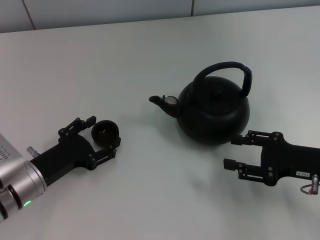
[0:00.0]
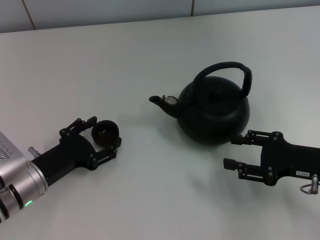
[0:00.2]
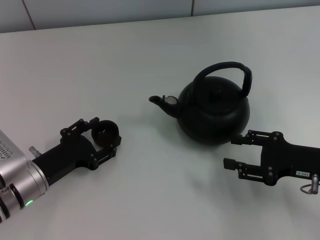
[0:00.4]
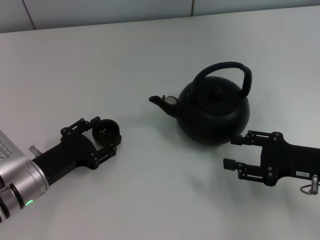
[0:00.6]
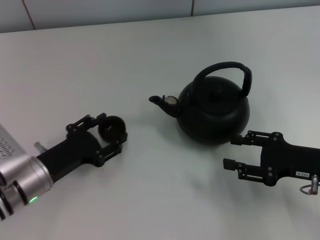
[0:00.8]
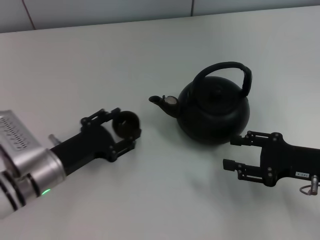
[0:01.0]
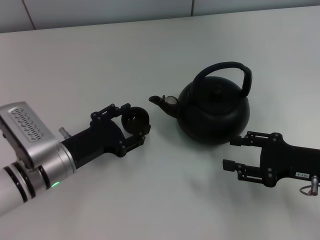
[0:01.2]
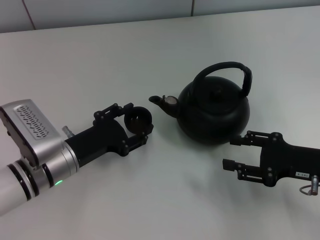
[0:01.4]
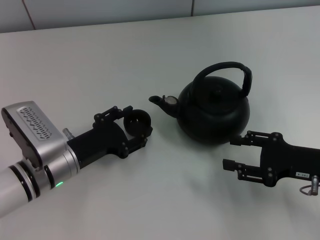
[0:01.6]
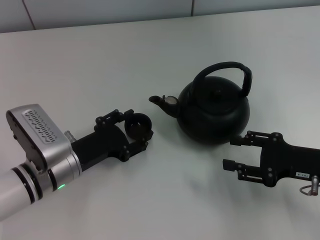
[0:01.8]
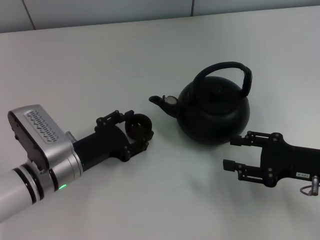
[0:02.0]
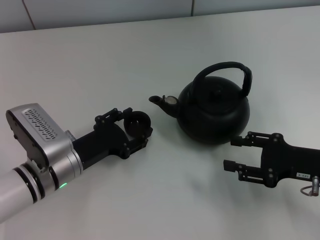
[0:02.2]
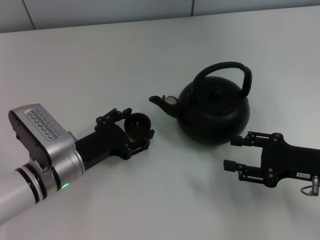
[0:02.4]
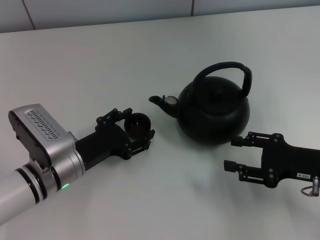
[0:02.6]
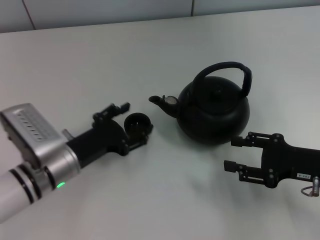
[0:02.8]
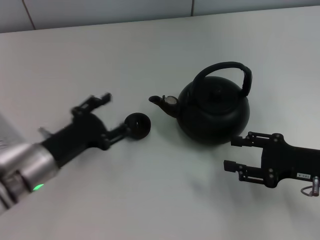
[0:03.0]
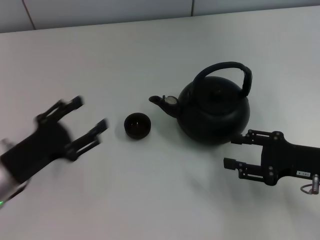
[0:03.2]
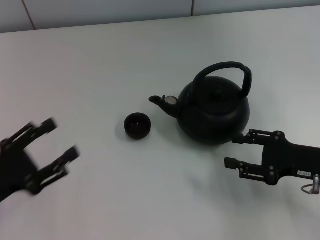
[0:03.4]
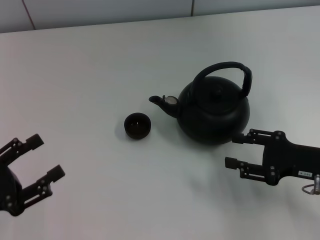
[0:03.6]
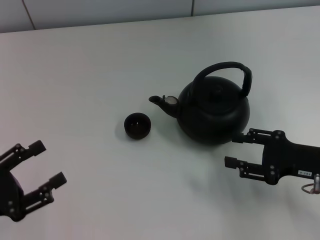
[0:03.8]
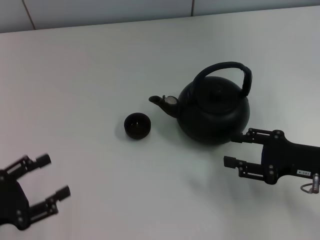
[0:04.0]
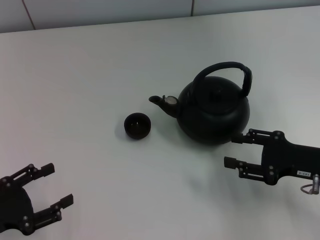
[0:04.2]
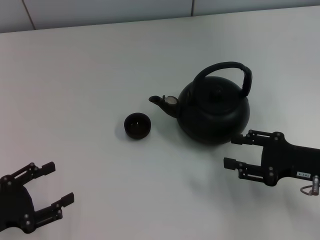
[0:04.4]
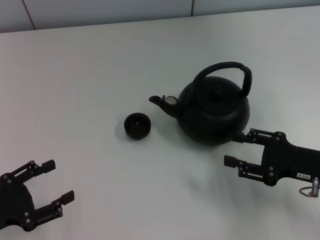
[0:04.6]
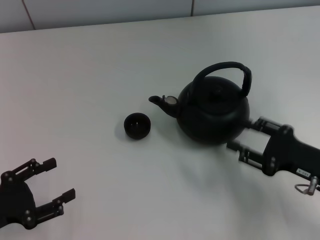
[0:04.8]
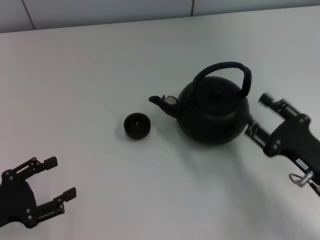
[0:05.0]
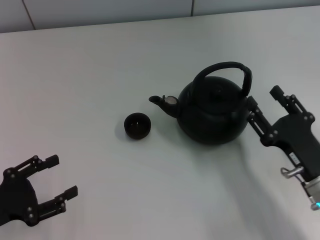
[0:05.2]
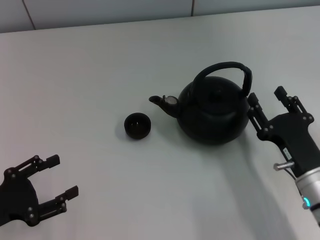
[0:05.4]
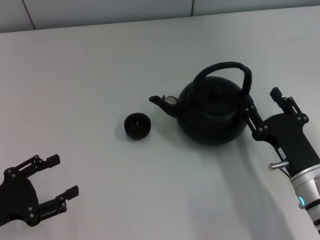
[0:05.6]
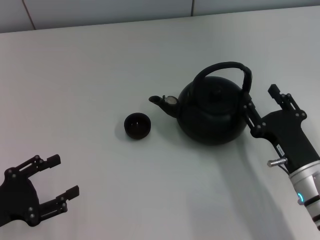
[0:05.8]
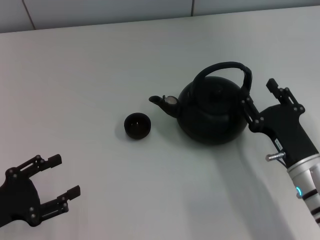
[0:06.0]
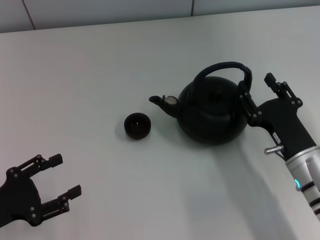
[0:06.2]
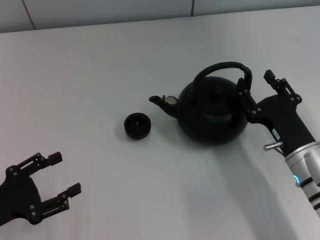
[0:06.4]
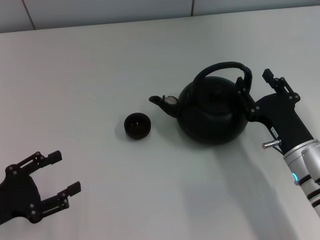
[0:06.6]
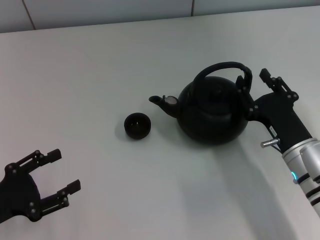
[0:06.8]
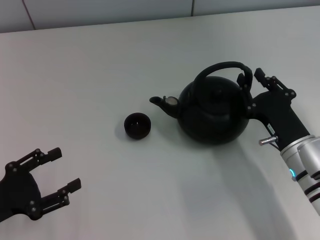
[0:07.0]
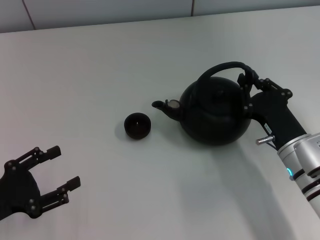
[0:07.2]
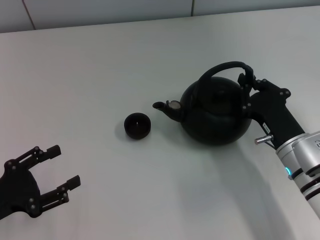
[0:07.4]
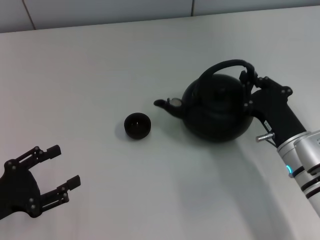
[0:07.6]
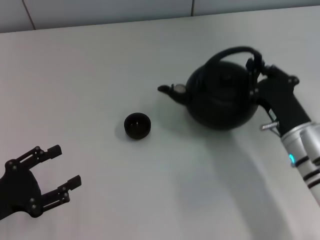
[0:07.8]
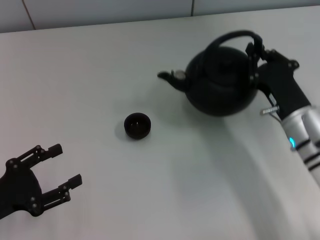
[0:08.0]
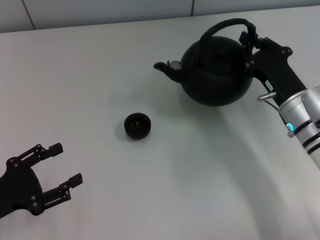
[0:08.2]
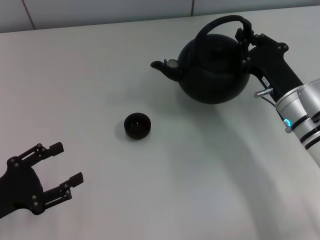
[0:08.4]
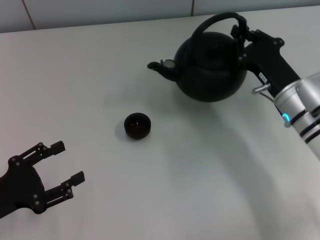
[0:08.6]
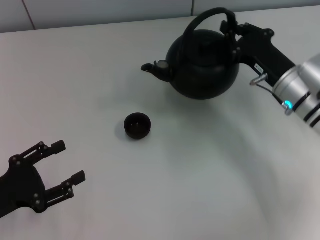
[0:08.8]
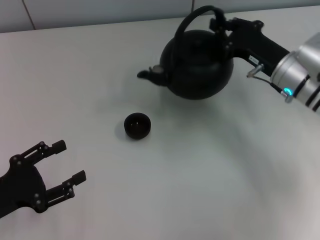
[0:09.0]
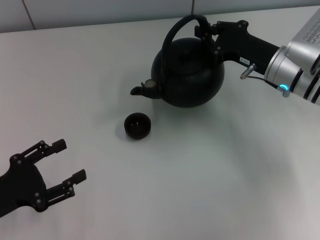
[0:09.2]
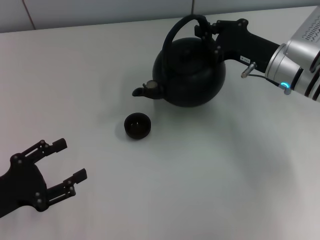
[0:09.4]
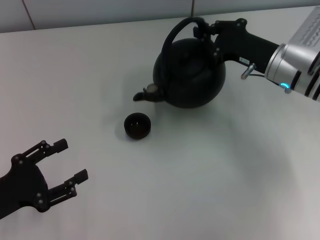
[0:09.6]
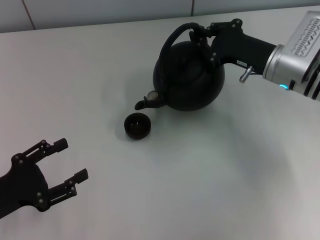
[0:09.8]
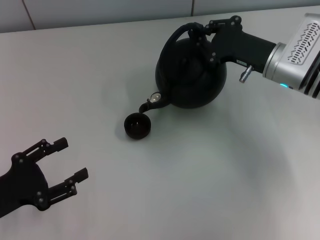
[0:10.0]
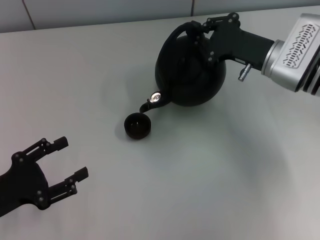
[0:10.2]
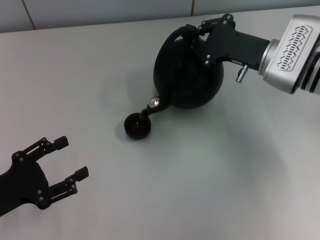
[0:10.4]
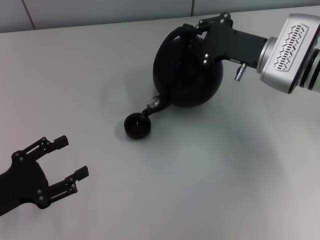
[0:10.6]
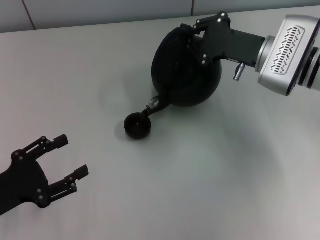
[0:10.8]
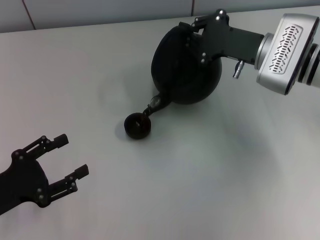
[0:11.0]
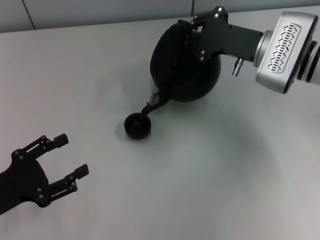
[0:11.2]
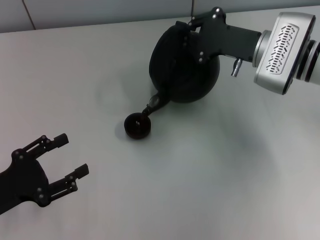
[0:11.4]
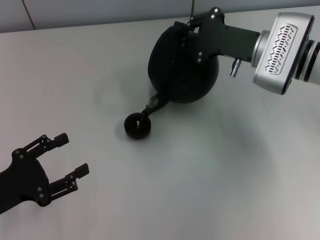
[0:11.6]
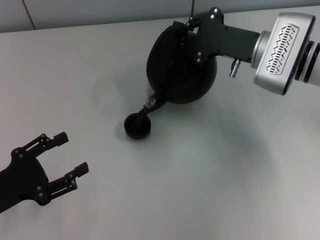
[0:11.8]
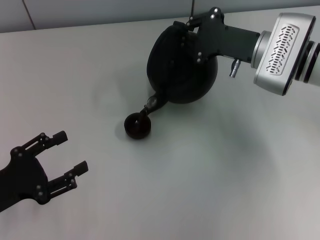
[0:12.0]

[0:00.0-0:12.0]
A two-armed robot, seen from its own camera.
Task of the whole recording: Grasp the handle of the teapot with one hand and pour tea into the teacup.
Step, 0:00.8 to 0:03.0: Place the teacup in the center of view with the left gripper.
Step, 0:03.2 to 0:08.2: Pick up the teapot with the right gripper.
0:00.0 to 0:01.6: The left gripper moves approximately 5 cm, and closes.
0:01.6 to 0:03.0: The left gripper opens its fingers.
0:03.0 to 0:04.4: The left gripper goes approximately 15 cm to the left and backward.
0:04.4 to 0:06.0: The right gripper moves to the left, roughly 10 cm.
0:06.0 to 0:07.6: The right gripper closes.
0:07.6 to 0:09.0: The right gripper moves forward and upward, roughly 15 cm.
0:10.4 to 0:12.0: The grippers move only a little.

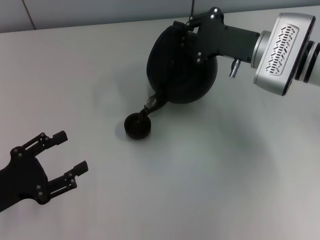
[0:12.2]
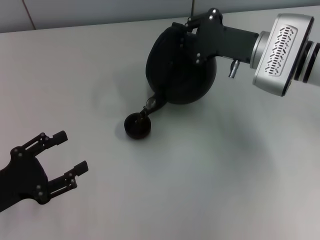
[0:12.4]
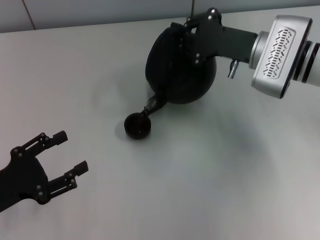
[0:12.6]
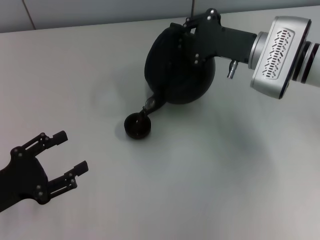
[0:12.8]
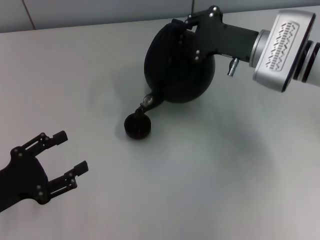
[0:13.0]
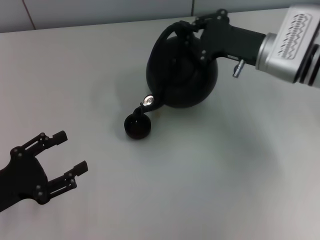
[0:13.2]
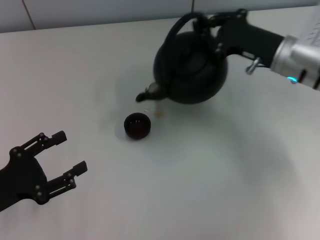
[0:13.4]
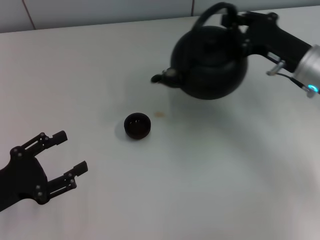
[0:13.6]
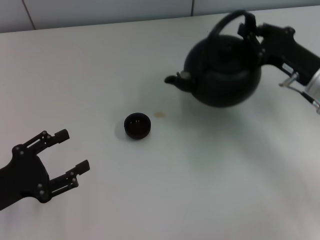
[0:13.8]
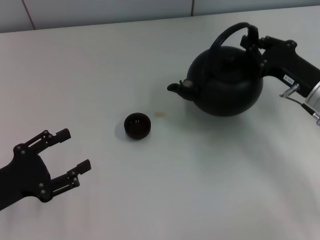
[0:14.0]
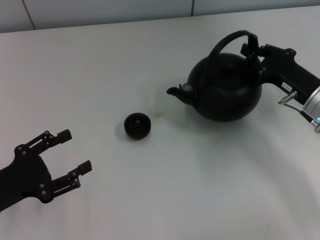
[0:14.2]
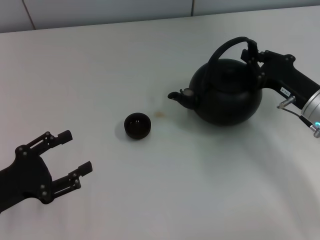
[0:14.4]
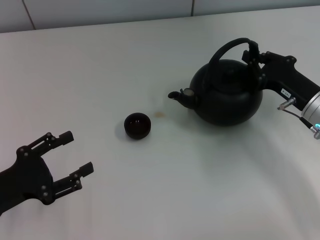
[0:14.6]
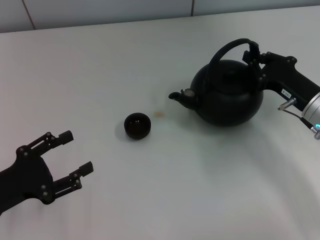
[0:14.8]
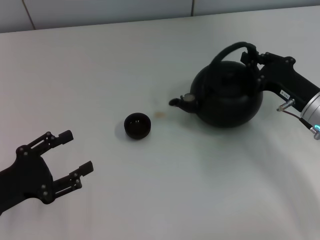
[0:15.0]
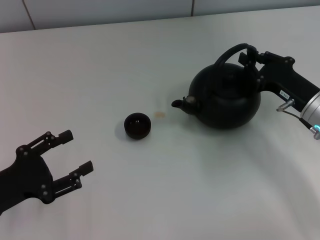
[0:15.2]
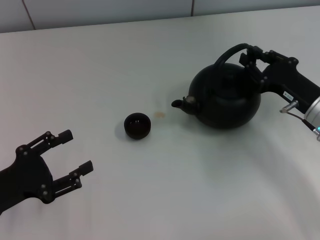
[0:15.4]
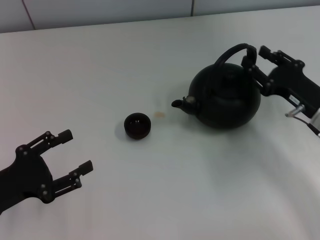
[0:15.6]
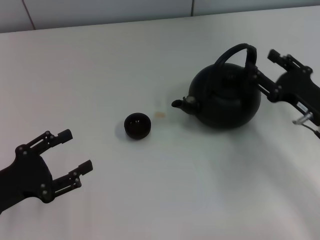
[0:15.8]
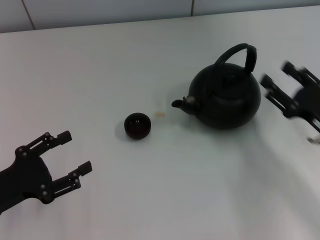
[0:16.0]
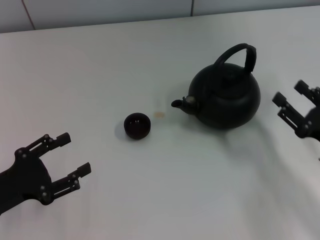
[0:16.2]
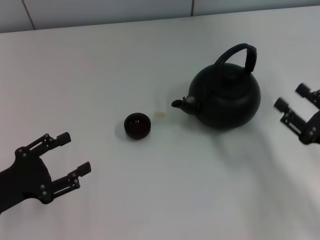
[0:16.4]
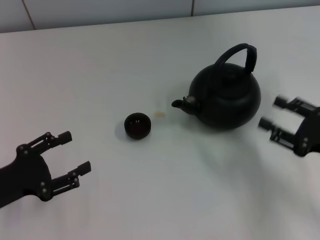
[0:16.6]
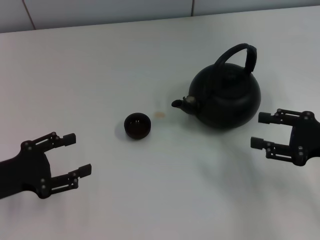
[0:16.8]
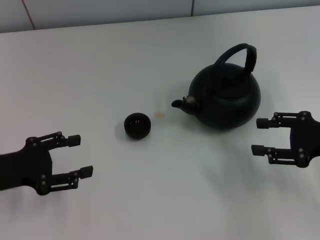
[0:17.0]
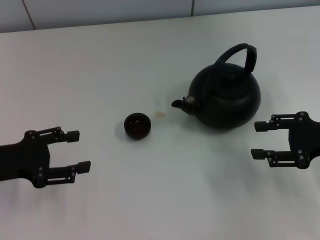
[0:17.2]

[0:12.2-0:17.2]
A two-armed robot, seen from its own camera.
Task of the whole recording: Grasp the handle of the teapot with one hand and pour tea into the teacup.
Step, 0:13.6 to 0:15.8: Put down the teapot with the right gripper.
0:12.2 to 0:13.8: The right gripper travels to the right and backward by roughly 10 cm.
0:13.8 to 0:15.6: The right gripper moves some 5 cm.
0:15.6 to 0:17.2: The right gripper heads upward, covering approximately 5 cm, moves about 10 cm backward and comes back, and opens its fingers. The left gripper heads forward, covering some 5 cm.

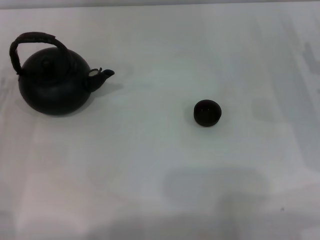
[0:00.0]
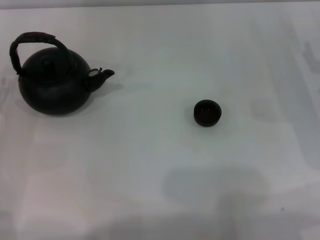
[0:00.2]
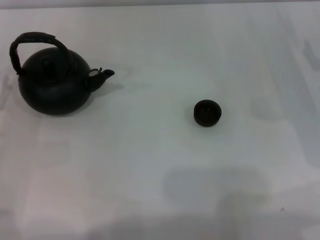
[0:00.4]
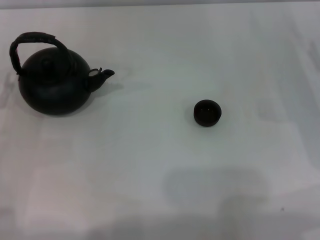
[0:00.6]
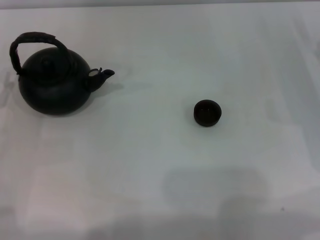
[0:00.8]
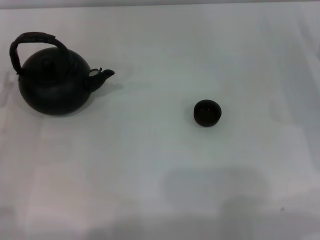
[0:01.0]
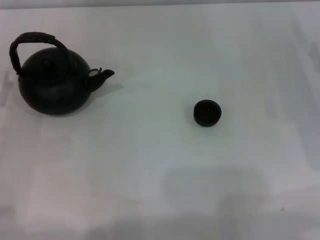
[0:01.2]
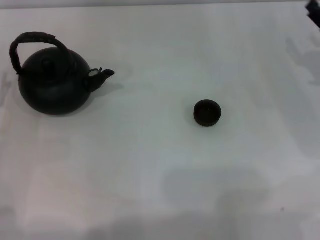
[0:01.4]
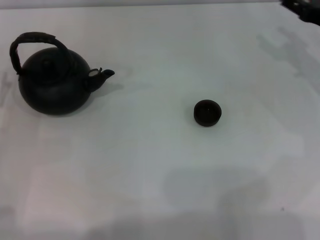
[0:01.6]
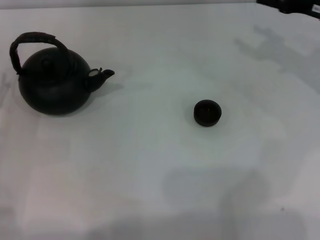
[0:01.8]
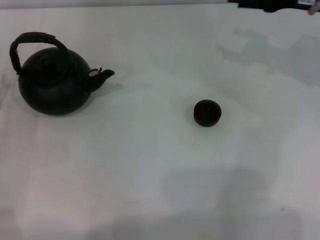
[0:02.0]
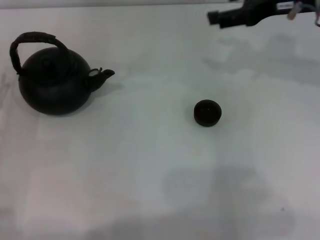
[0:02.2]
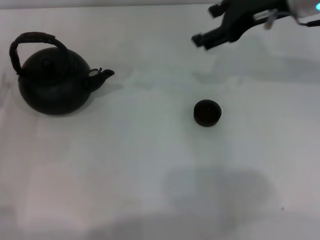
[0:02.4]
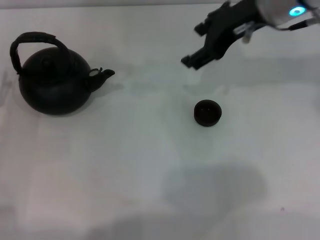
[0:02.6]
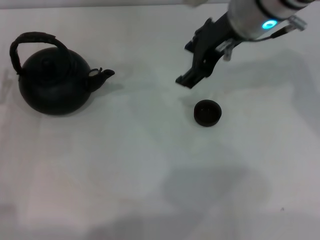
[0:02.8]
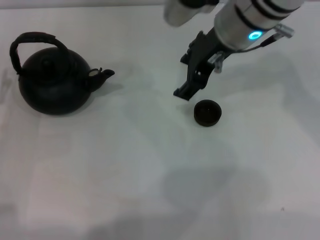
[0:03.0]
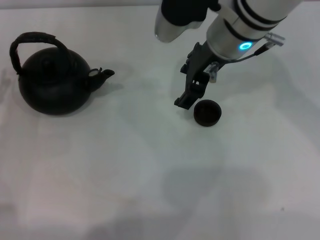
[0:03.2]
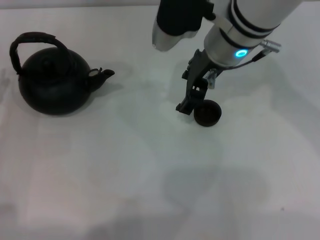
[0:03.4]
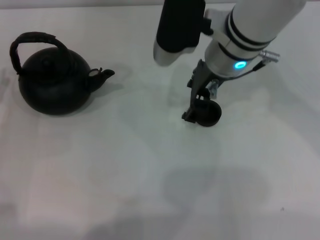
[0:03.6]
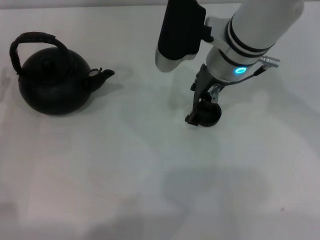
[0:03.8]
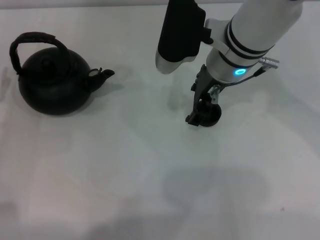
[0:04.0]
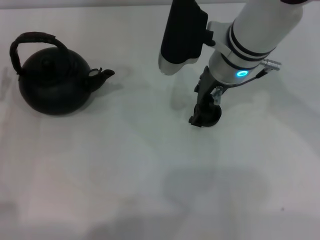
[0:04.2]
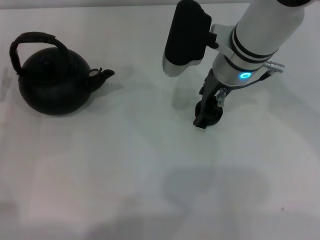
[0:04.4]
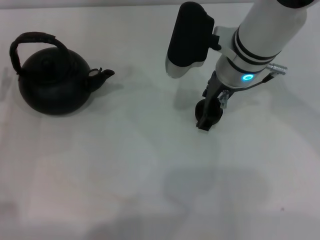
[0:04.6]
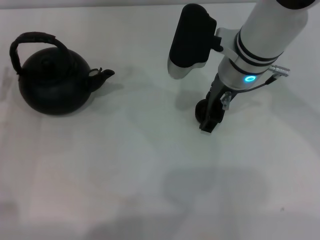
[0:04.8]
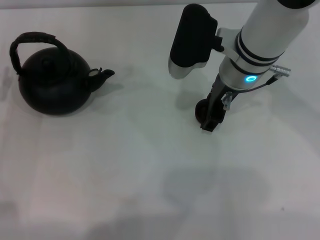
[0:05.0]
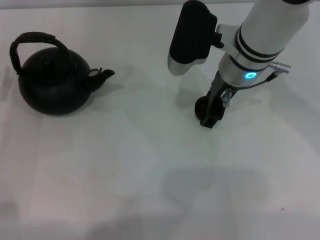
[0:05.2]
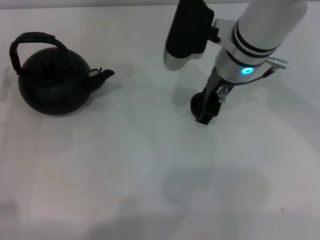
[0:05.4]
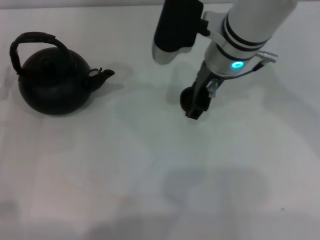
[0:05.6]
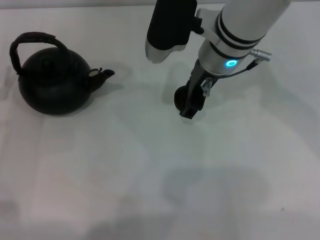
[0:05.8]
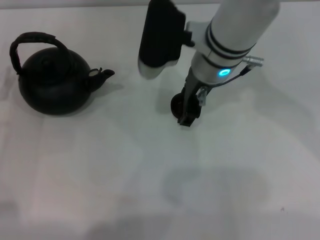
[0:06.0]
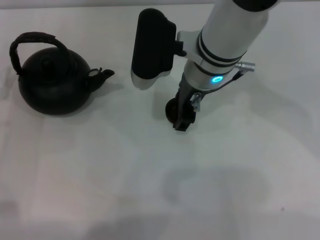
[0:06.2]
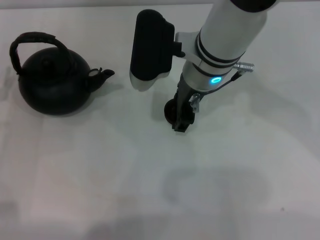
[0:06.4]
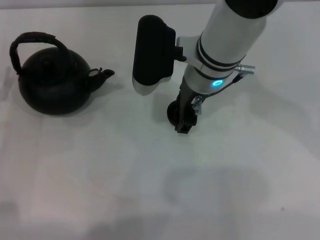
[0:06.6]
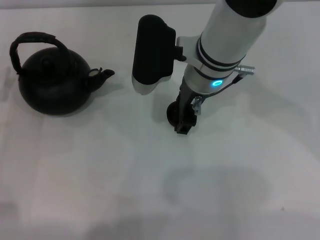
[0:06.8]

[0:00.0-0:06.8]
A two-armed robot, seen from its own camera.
Task of the whole recording: Grasp the handle of the teapot with one hand and pour tea into the teacup.
Step, 0:00.0 to 0:05.4: Pick up the teacup with the right gripper.
0:01.4 to 0:02.8: The right gripper heads to the left and upward, covering approximately 25 cm.
0:02.8 to 0:04.0: The right gripper travels downward by about 5 cm.
0:04.0 to 0:05.4: The right gripper closes up.
0:05.4 to 0:06.8: The grippers stay close to where they were, moving slightly.
